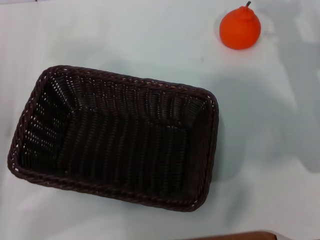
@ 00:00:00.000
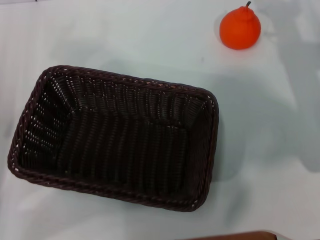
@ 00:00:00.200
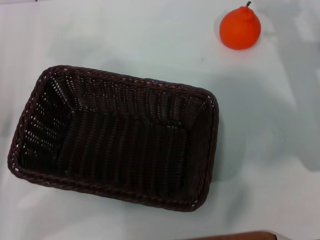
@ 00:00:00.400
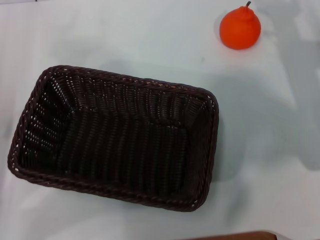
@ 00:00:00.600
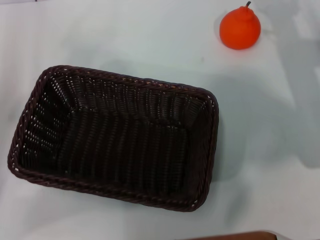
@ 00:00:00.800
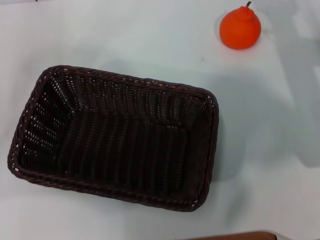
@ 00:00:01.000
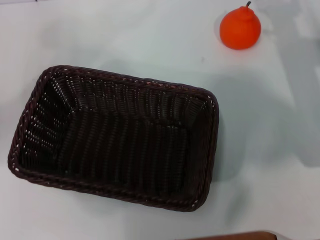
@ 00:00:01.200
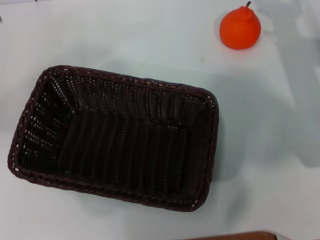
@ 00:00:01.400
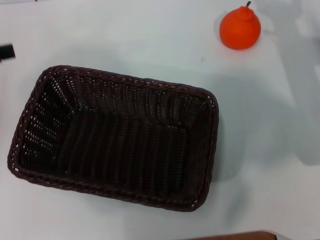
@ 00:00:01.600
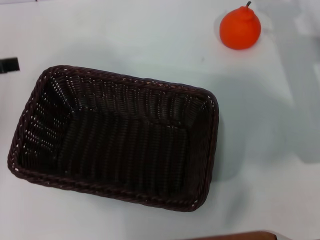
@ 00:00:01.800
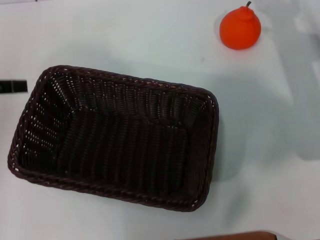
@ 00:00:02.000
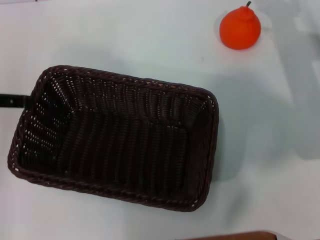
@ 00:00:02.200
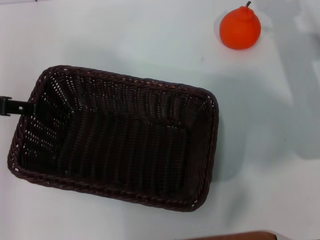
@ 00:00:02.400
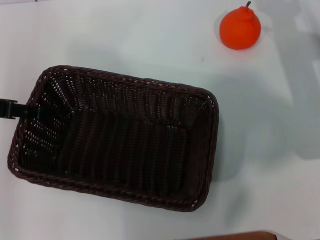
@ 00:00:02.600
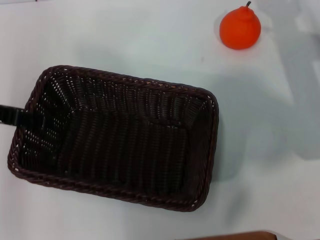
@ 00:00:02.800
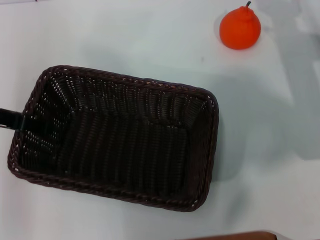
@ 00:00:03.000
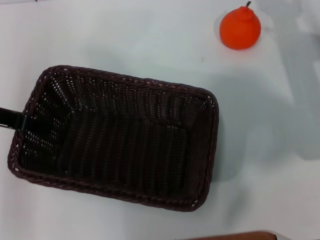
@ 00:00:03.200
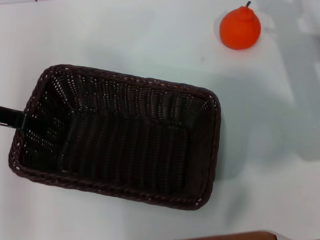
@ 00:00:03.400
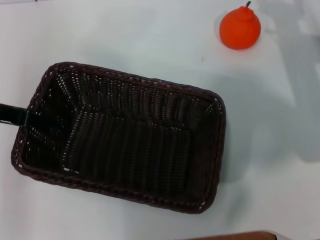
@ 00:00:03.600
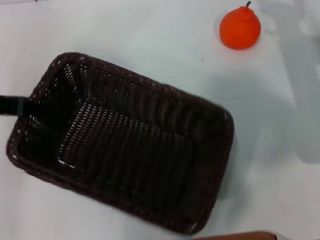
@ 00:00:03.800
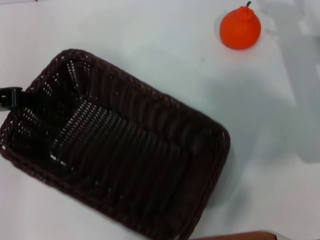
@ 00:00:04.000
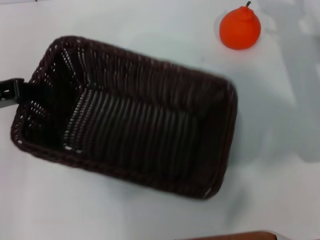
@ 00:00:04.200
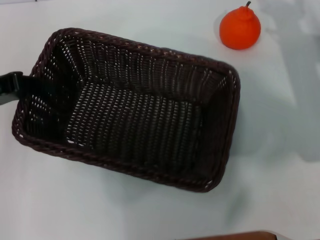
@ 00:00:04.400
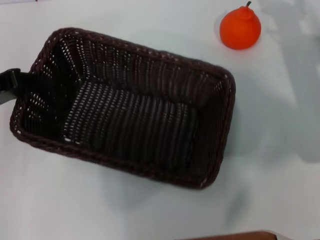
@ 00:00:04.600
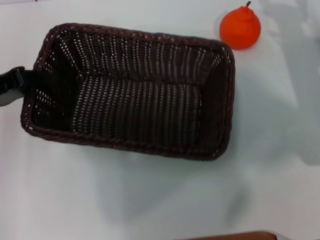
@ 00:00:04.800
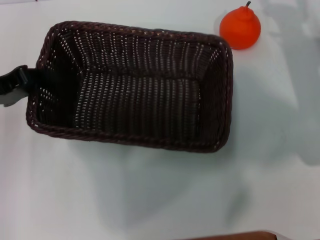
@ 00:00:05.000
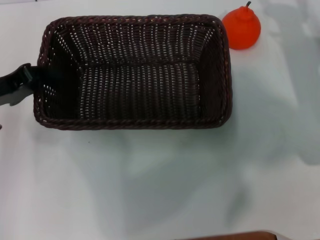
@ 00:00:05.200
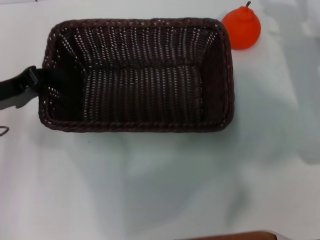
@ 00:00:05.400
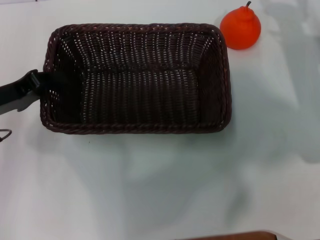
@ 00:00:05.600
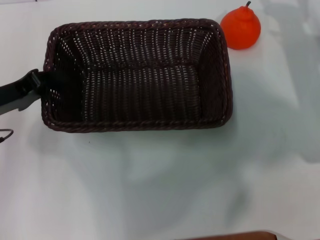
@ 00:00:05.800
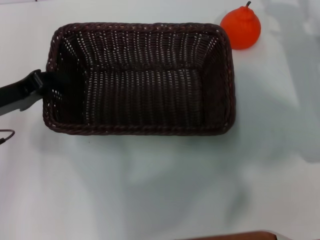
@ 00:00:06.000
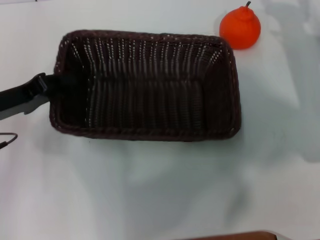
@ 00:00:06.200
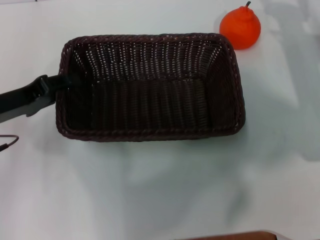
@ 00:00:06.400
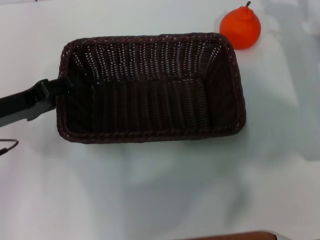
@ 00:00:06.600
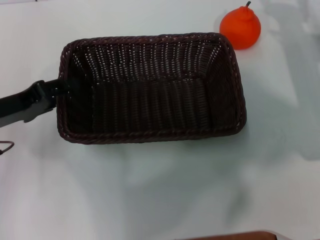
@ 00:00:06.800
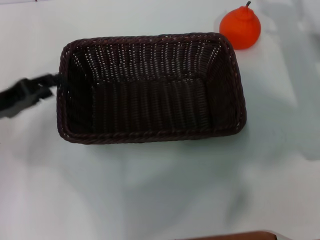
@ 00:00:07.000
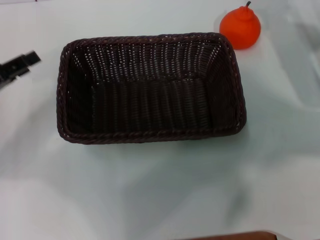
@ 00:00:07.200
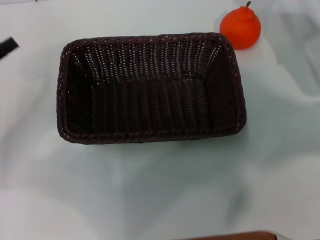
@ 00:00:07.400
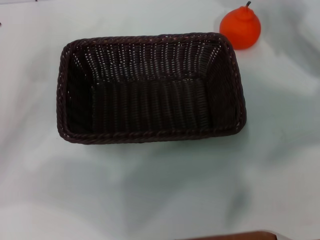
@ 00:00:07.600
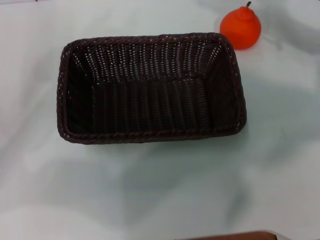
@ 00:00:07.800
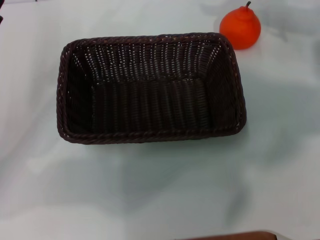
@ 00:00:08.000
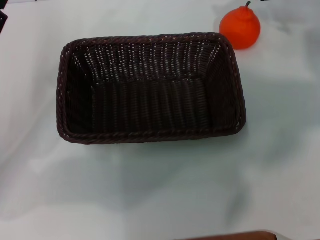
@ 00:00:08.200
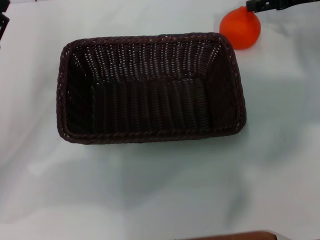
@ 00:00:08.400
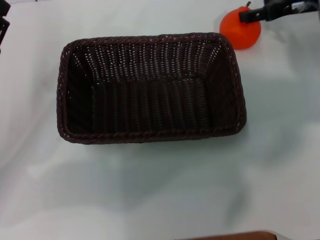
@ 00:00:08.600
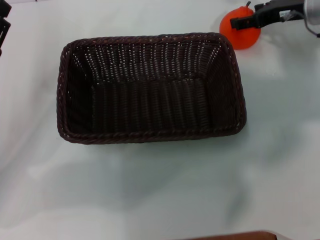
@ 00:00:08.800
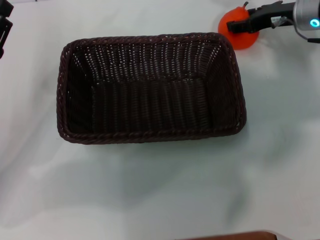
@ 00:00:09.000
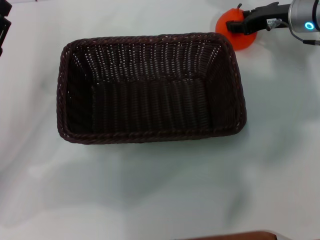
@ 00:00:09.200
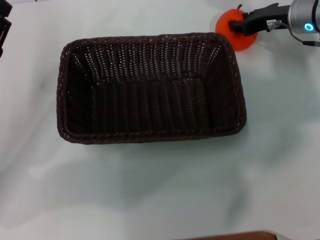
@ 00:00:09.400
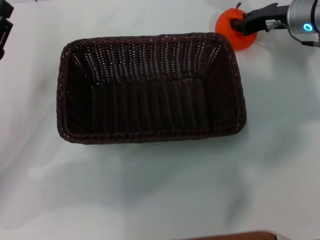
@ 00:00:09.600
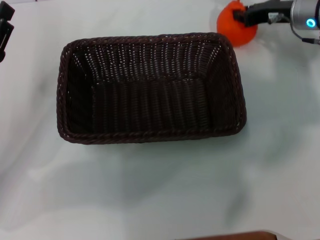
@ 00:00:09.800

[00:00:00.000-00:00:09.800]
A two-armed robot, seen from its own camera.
Task of the whole recording: the left gripper pick up the black basket and place it horizontally in the middle of the table, the right gripper pick up the orange and place it into the black basket.
Step, 00:00:00.000 to 00:00:03.800: Pick up the dark basket with the left gripper.
Step, 00:00:04.000 to 00:00:06.800: Place the dark basket in the center of view with the left gripper.
Step, 00:00:07.000 to 00:00:09.800: Pick up the orange with the right gripper.
00:00:00.000 to 00:00:01.400: The left gripper moves upward and forward, roughly 15 cm.
00:00:01.400 to 00:00:02.800: The left gripper heads to the right, covering approximately 5 cm.
00:00:02.800 to 00:00:04.200: The left gripper closes its fingers.
00:00:04.200 to 00:00:05.600: The left gripper is displaced downward by approximately 5 cm.
00:00:05.600 to 00:00:07.000: The left gripper opens up.
00:00:07.000 to 00:00:08.400: The right gripper is displaced upward and forward by roughly 15 cm.
00:00:08.400 to 00:00:09.800: The right gripper is displaced downward by approximately 5 cm, and closes its fingers.

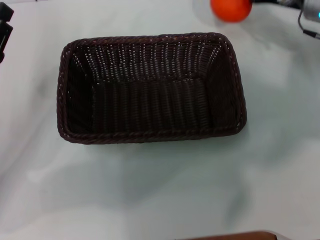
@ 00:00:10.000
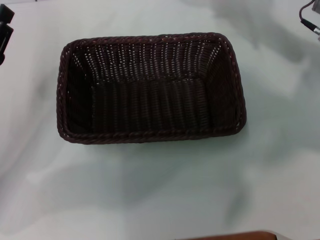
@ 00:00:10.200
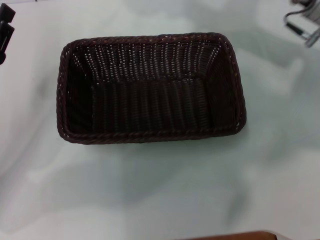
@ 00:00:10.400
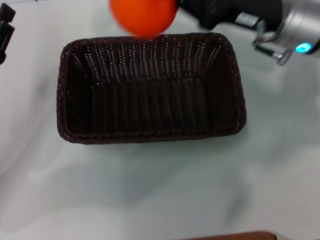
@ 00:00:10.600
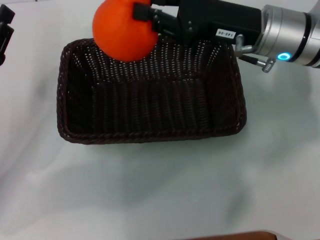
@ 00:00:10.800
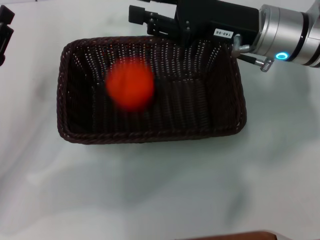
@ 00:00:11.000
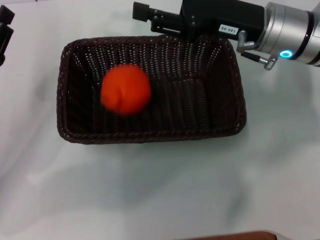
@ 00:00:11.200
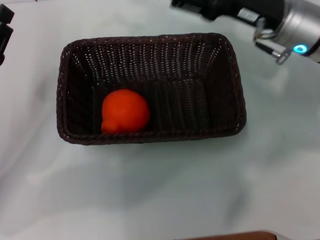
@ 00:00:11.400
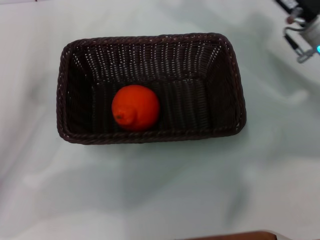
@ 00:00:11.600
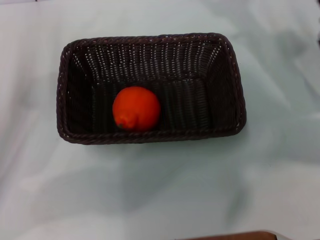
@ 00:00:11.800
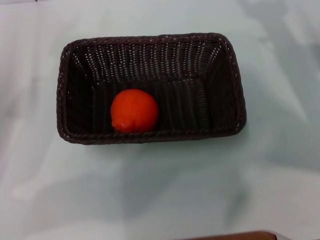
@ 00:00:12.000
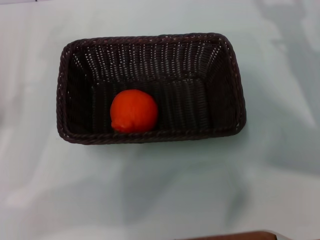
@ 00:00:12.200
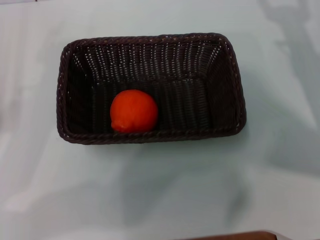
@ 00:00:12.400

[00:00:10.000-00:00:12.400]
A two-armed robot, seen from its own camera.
Task of the whole recording: the left gripper pick up the black basket and place it horizontally in the middle of the table, the right gripper pick up the orange and place it into the black basket.
Step, 00:00:10.000 to 00:00:11.000: Place the orange into the dark basket with the right gripper.
00:00:10.000 to 00:00:11.200: The right gripper heads to the left and backward, covering some 10 cm, and opens its fingers.
00:00:11.200 to 00:00:12.400: The right gripper goes about 15 cm to the right, downward and backward, and opens up, while the left gripper shifts some 5 cm to the left.
